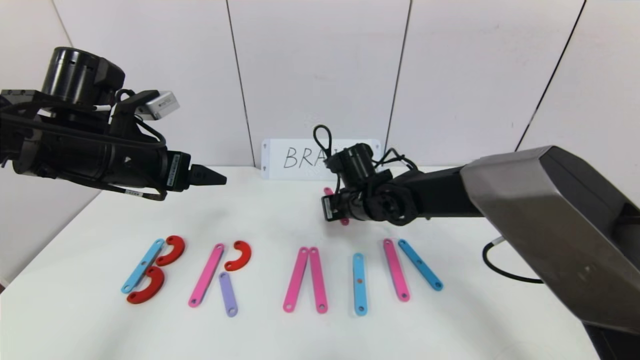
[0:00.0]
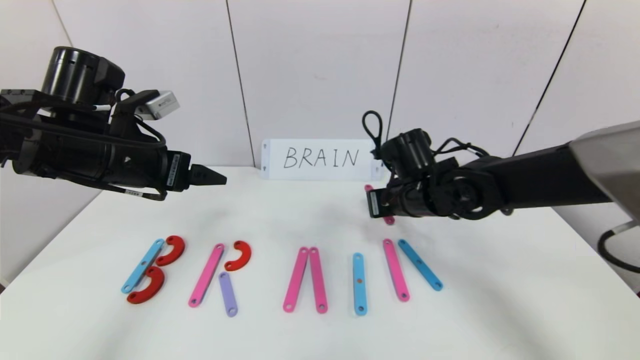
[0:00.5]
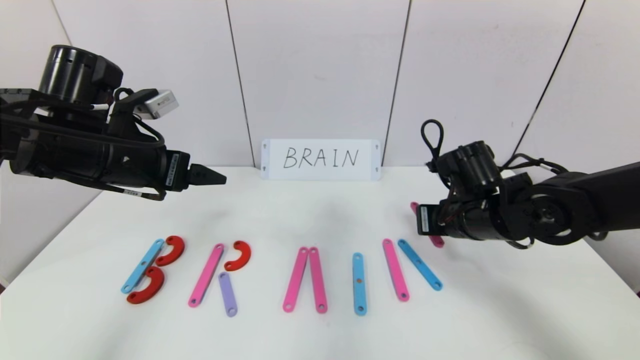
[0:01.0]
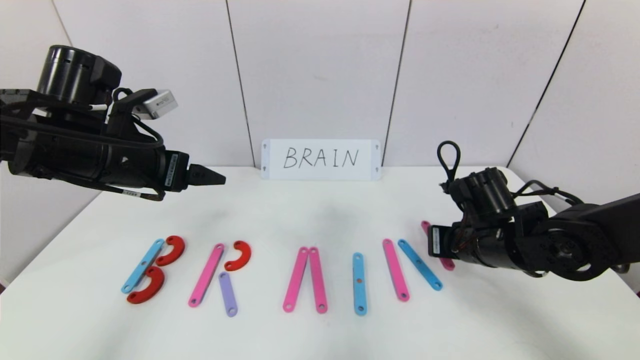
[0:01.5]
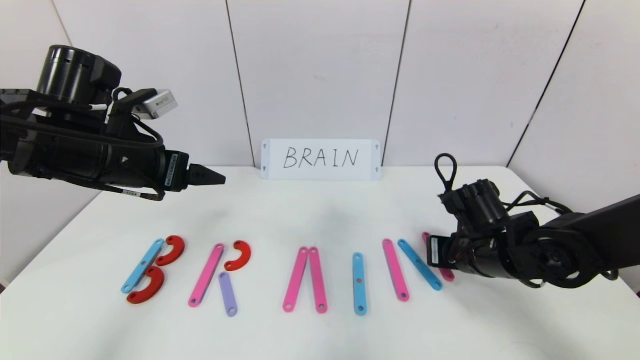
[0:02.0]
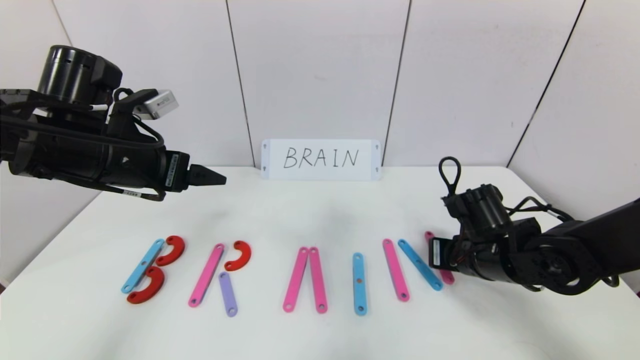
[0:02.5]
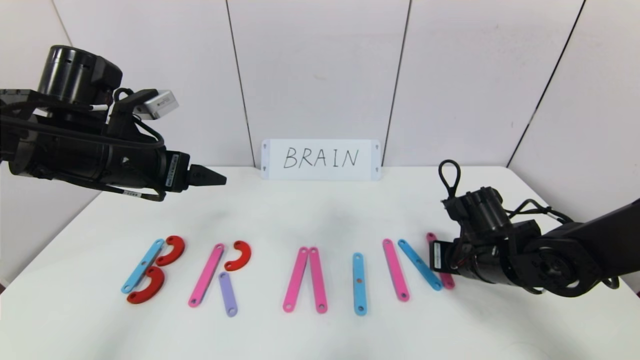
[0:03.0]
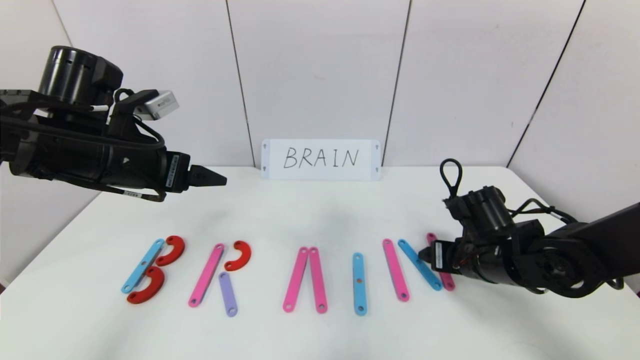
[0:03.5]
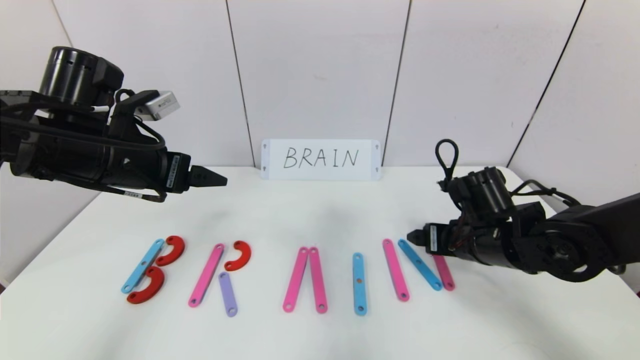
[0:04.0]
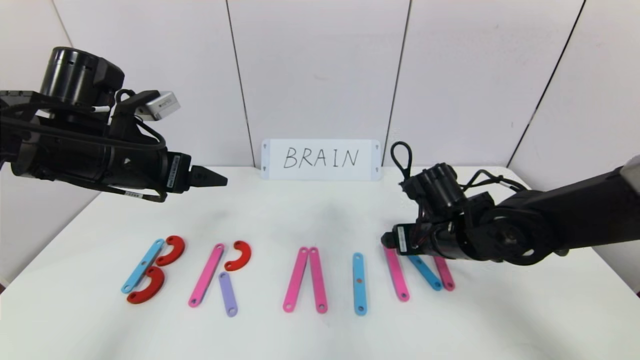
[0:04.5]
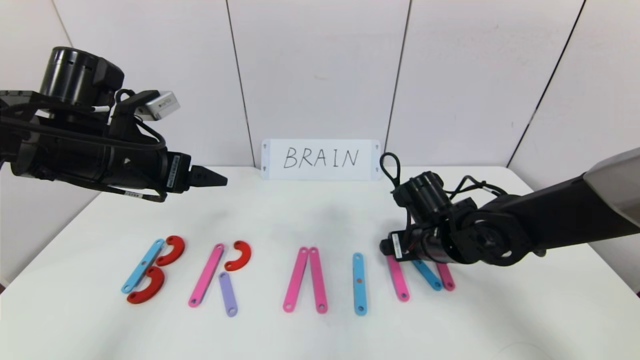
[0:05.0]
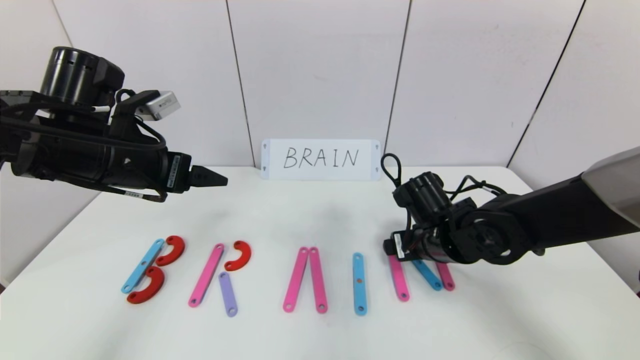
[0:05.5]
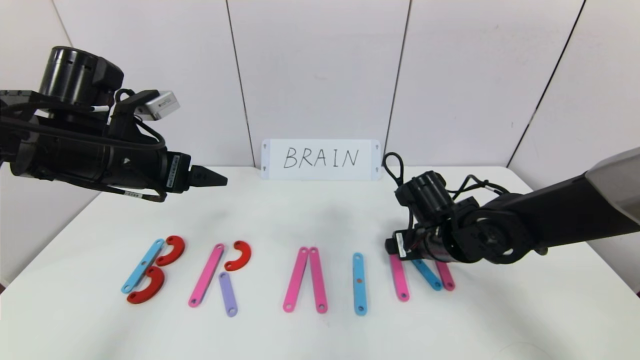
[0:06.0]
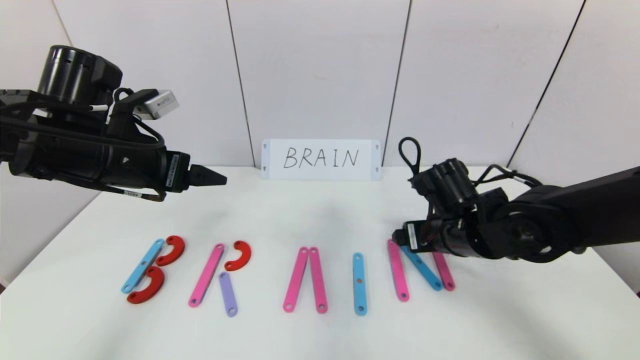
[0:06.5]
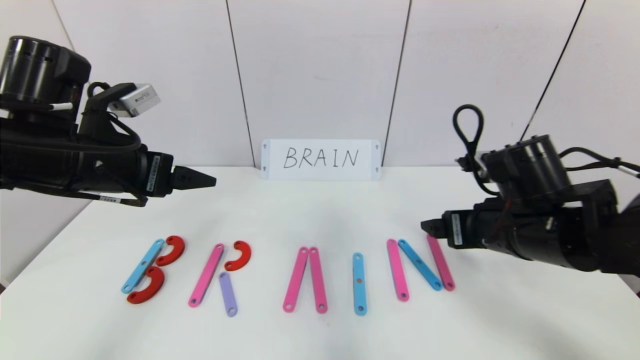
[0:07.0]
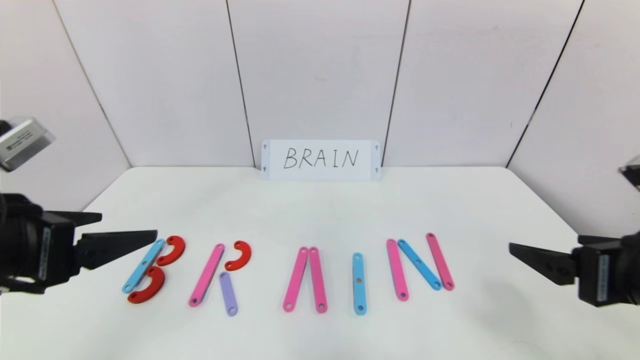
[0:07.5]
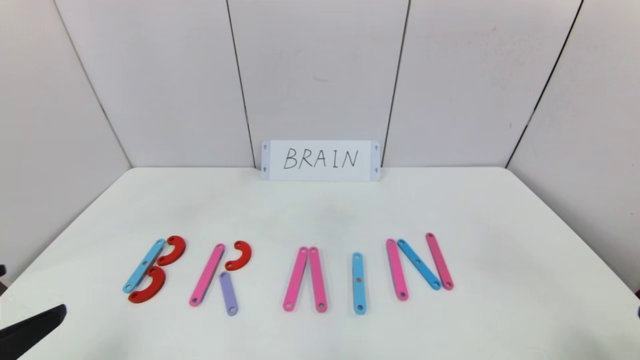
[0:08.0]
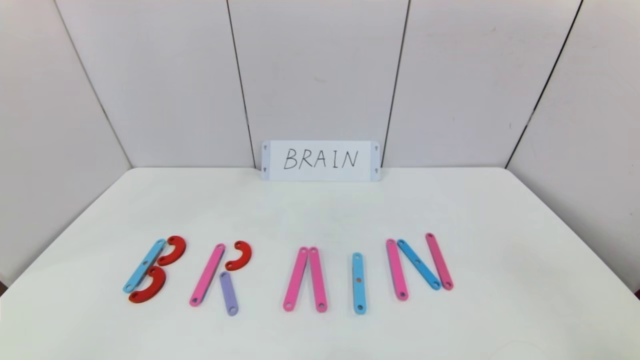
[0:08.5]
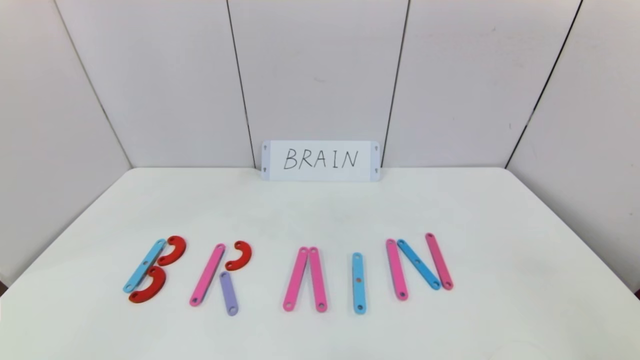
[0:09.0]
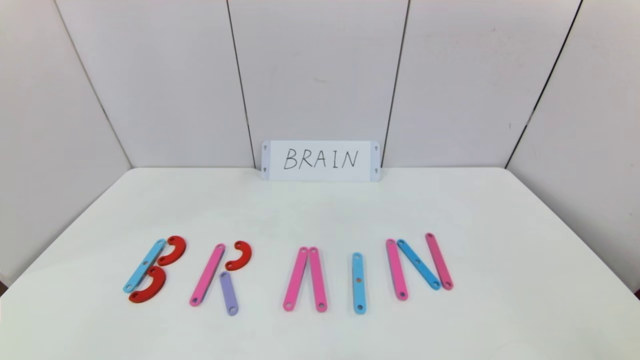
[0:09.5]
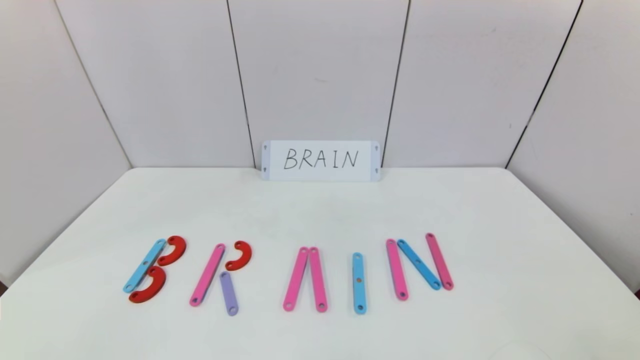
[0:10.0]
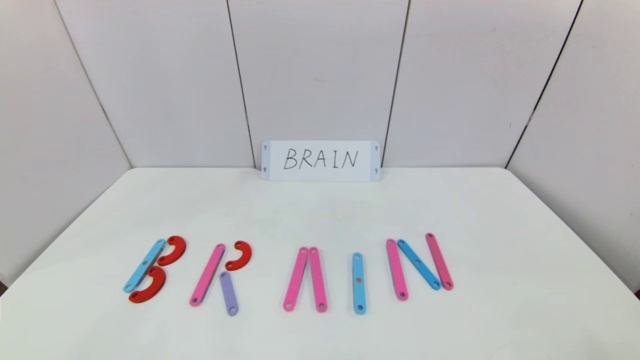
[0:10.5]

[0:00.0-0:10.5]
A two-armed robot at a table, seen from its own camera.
Task of the whole recording: rearrange the word baai as brain.
Step, 0:00.0 to 0:03.5: Place the character N after character I.
0:00.0 to 0:02.0: The right gripper shifts approximately 20 cm to the right and backward.
0:02.0 to 0:04.0: The right gripper opens up.
0:04.0 to 0:06.5: There are only small adjustments of the grippers.
0:06.5 to 0:08.5: The left gripper shifts about 30 cm backward. Meanwhile the right gripper travels backward and to the right by some 35 cm.
